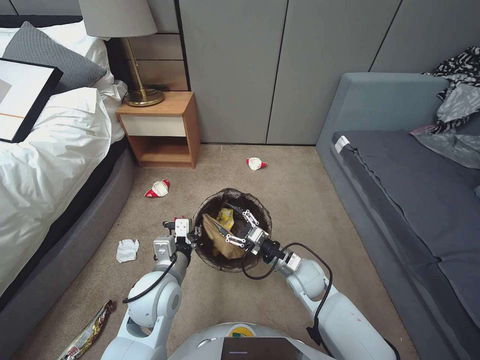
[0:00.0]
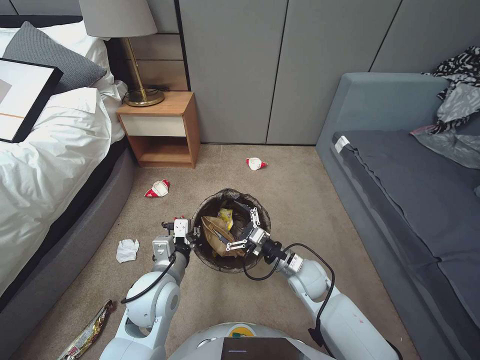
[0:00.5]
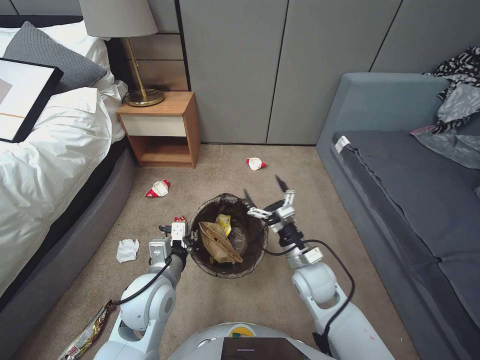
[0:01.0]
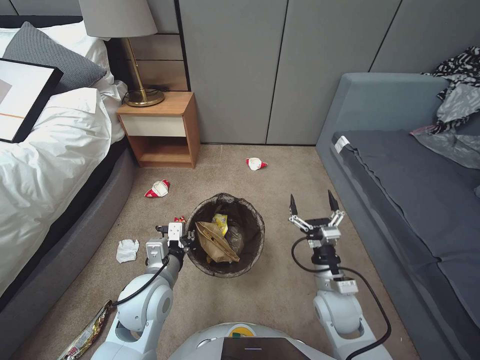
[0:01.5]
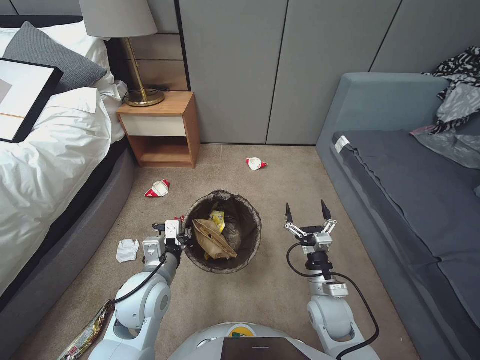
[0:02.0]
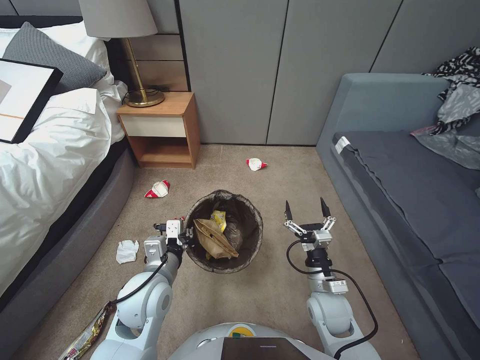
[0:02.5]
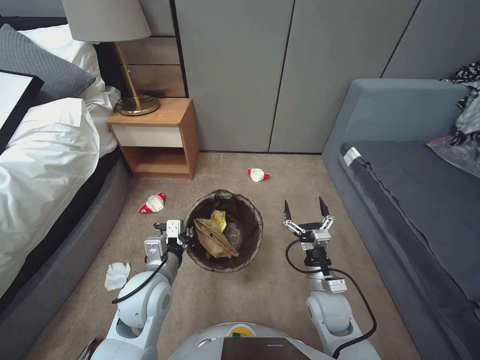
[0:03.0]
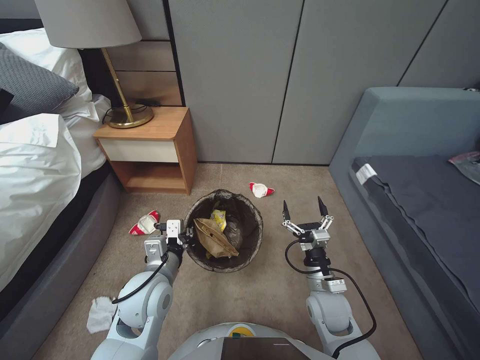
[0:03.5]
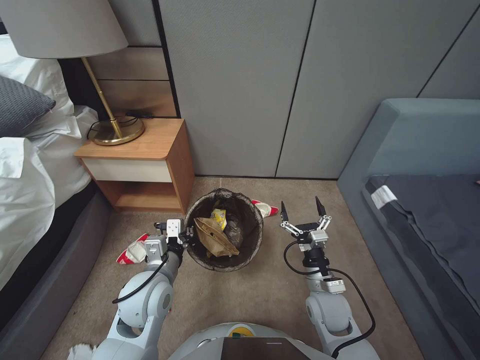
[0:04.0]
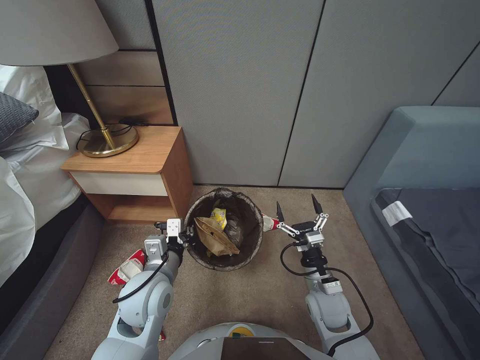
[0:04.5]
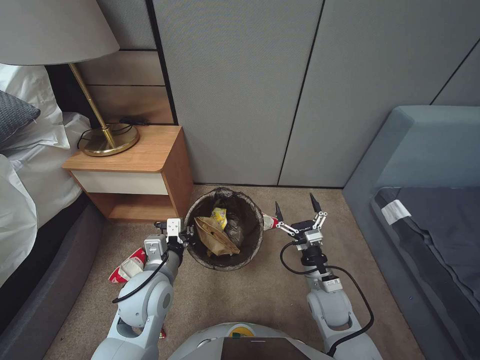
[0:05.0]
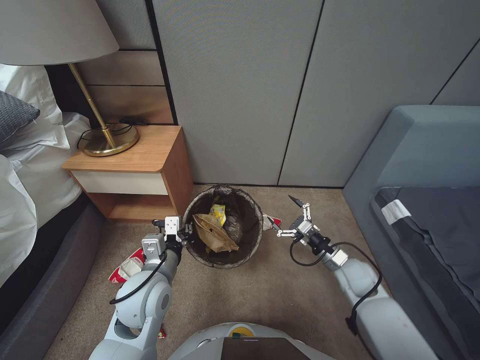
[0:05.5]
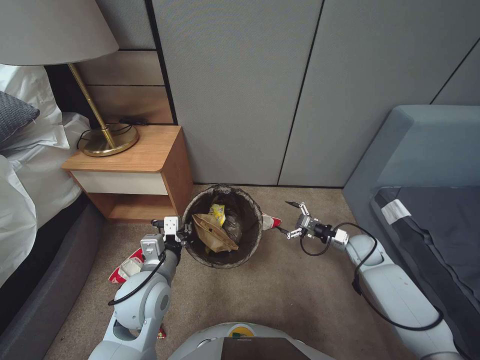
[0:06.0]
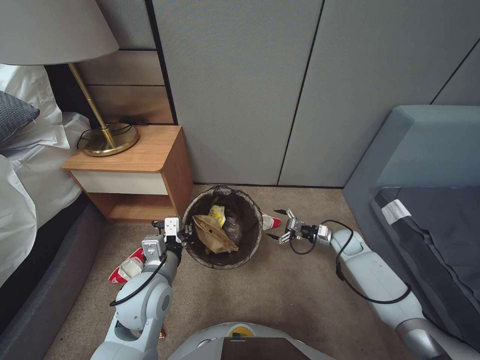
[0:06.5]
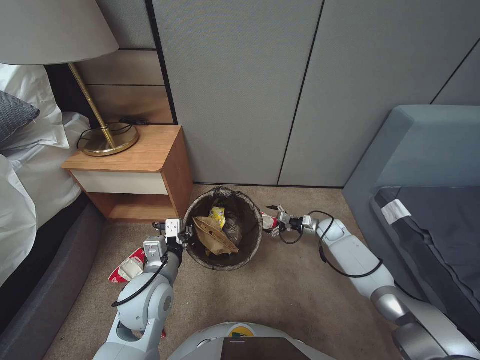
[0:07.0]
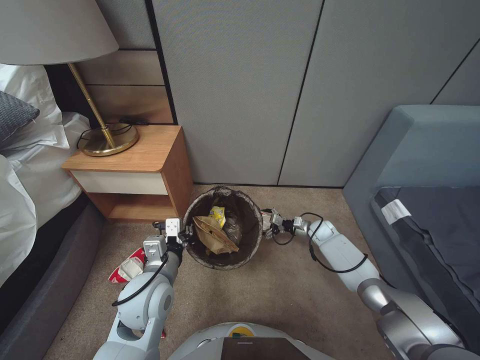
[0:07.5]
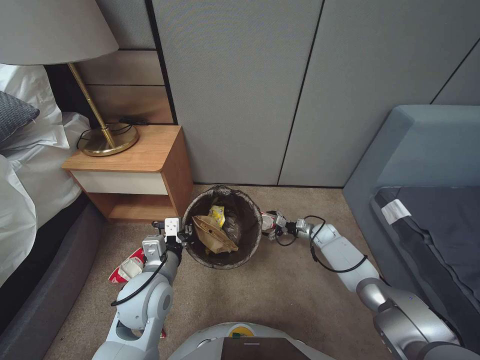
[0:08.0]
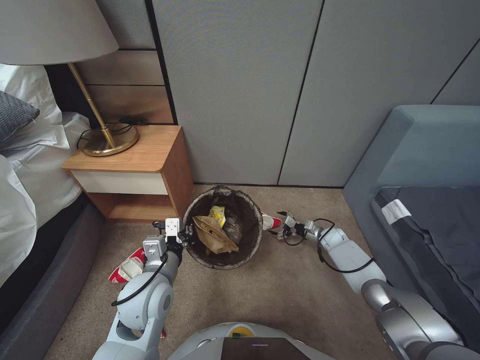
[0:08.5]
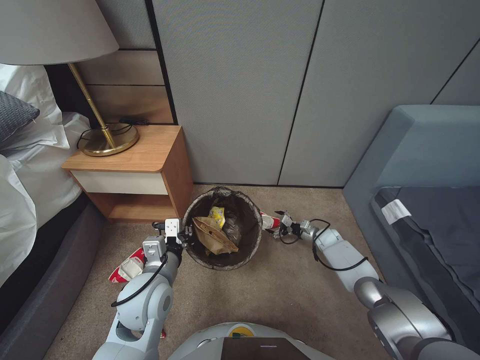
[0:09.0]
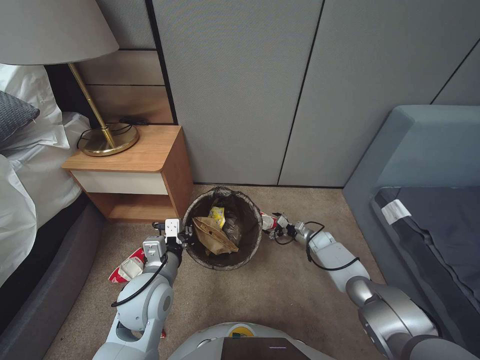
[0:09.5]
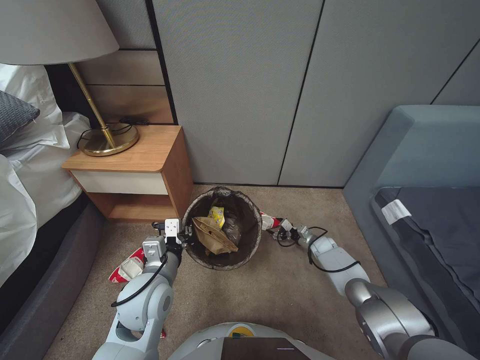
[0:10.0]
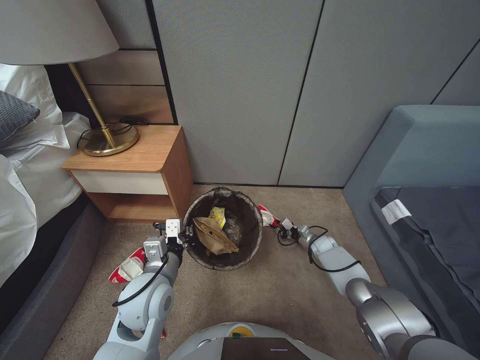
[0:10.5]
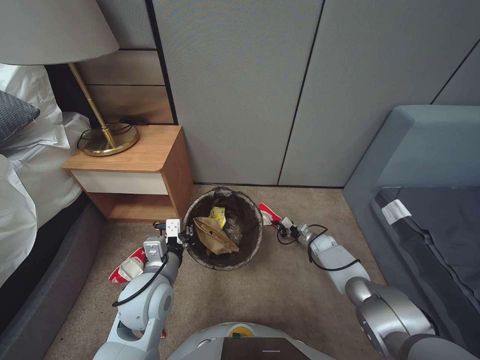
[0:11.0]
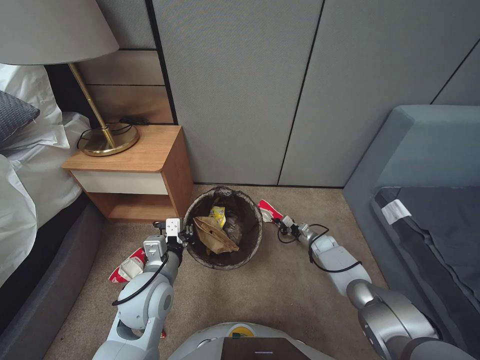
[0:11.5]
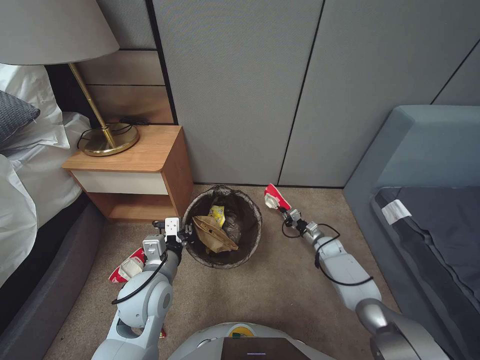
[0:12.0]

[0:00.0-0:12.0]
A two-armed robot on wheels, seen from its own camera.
Task of the whole recording: Pick up the trash bin, then pick up the garbage from the floor and place it into the trash bin.
0:00.0 to 0:02.0: The right gripper travels backward by some 10 cm, and opens up.
0:04.0 to 0:06.0: The right gripper moves to the right and forward, approximately 20 cm.
0:06.0 to 0:08.0: The right gripper travels forward and downward by about 15 cm.
0:08.0 to 0:10.0: The right gripper heads downward, covering about 5 cm.
0:10.0 to 0:12.0: The right gripper closes its fingers.

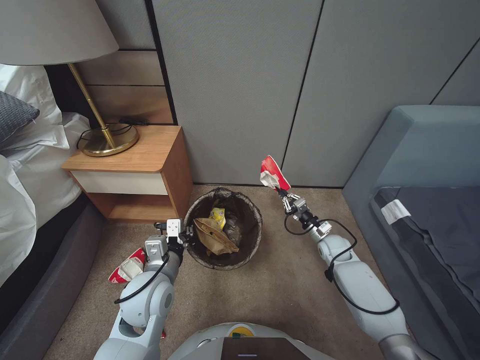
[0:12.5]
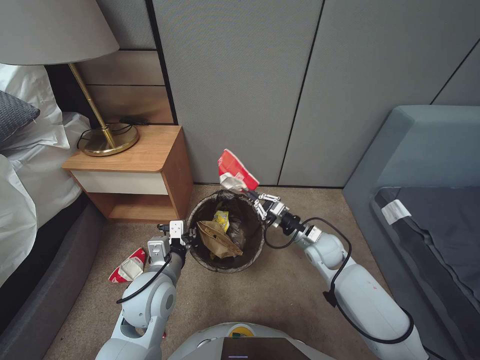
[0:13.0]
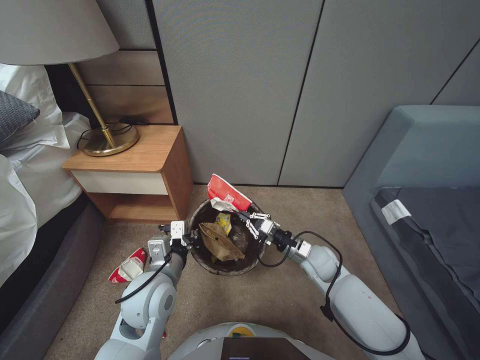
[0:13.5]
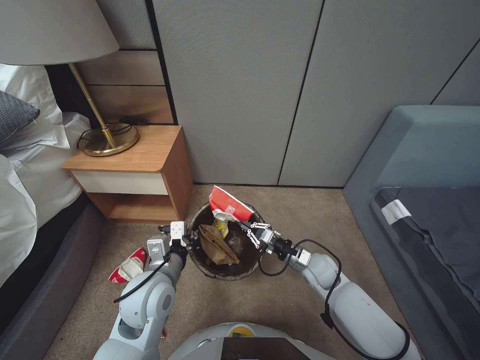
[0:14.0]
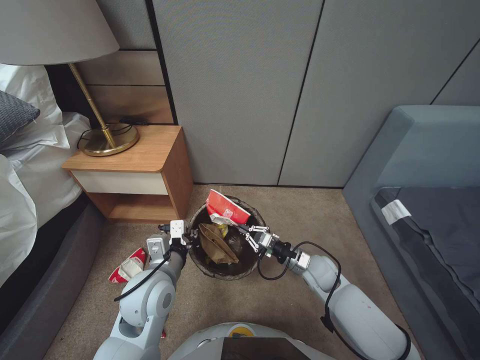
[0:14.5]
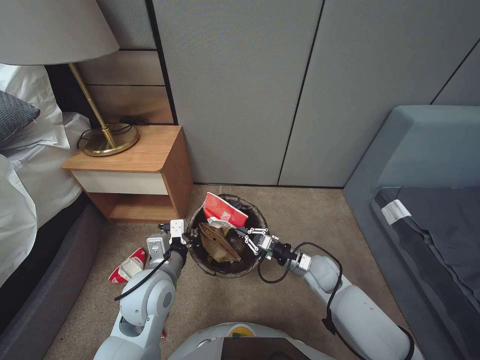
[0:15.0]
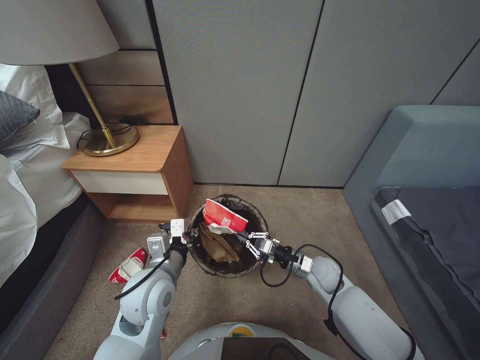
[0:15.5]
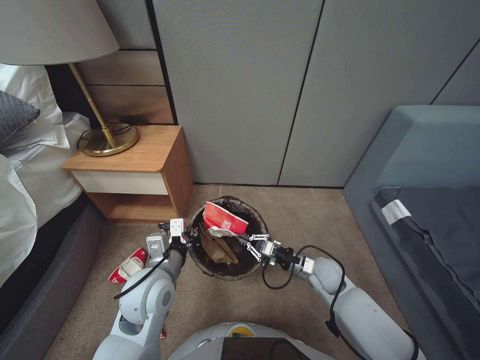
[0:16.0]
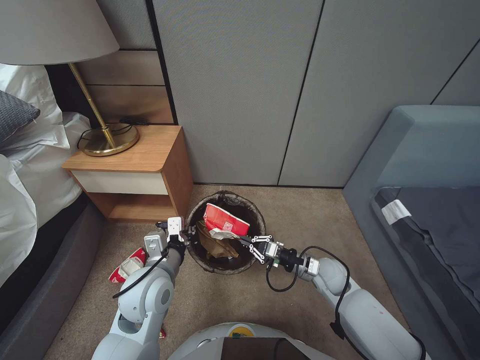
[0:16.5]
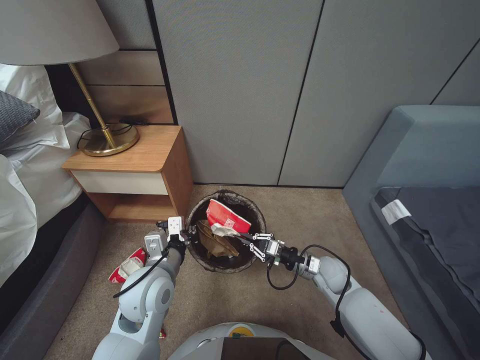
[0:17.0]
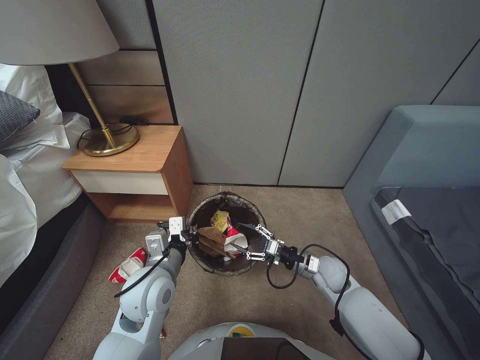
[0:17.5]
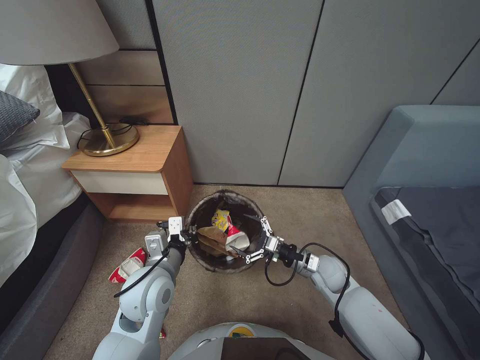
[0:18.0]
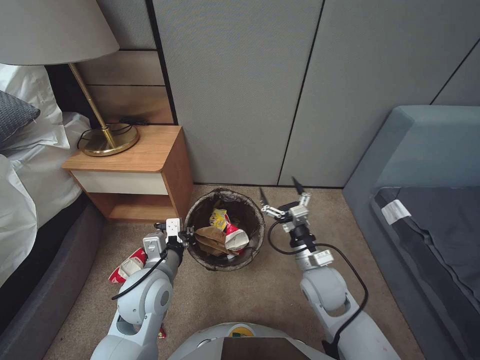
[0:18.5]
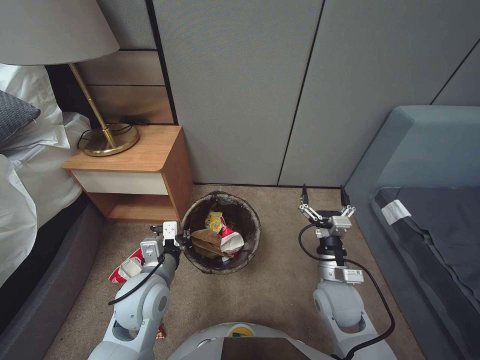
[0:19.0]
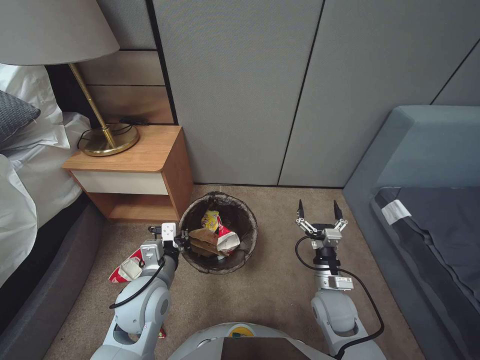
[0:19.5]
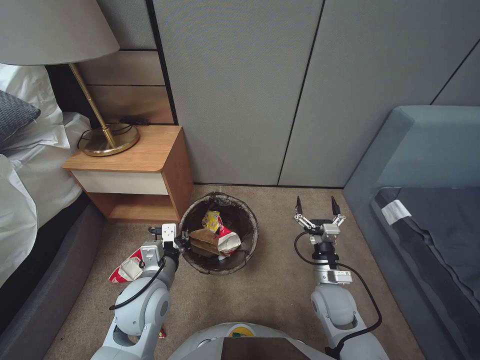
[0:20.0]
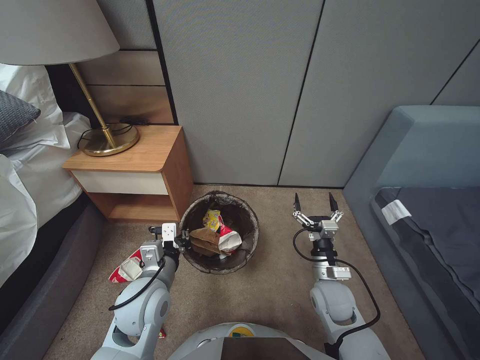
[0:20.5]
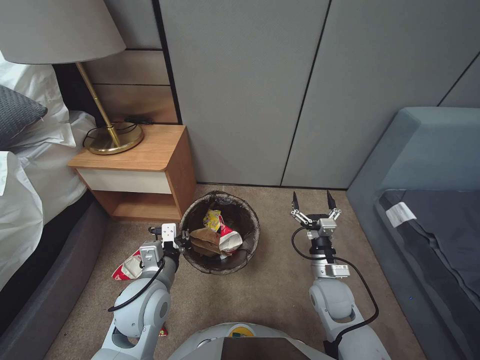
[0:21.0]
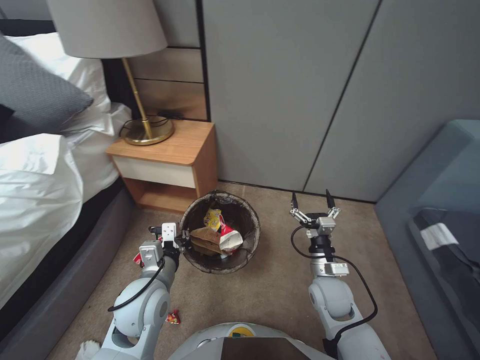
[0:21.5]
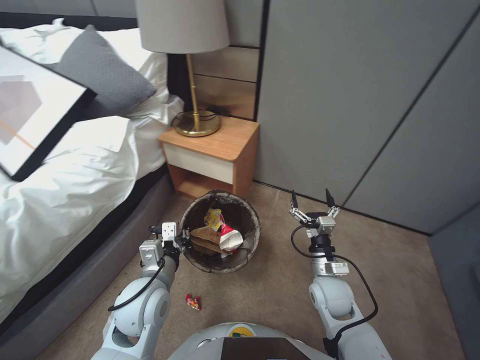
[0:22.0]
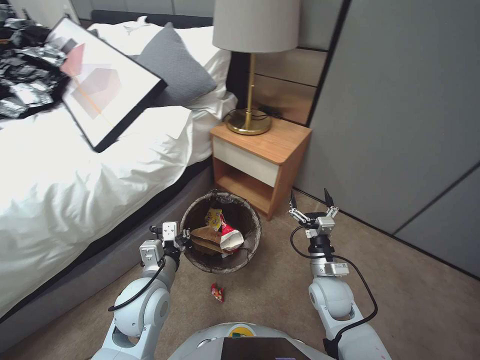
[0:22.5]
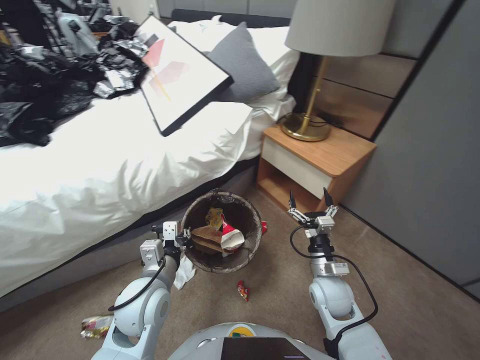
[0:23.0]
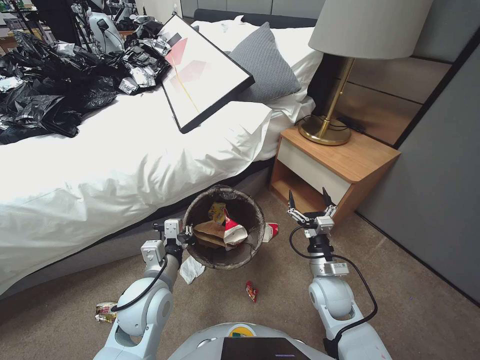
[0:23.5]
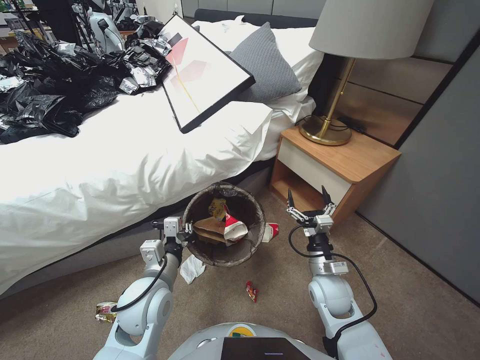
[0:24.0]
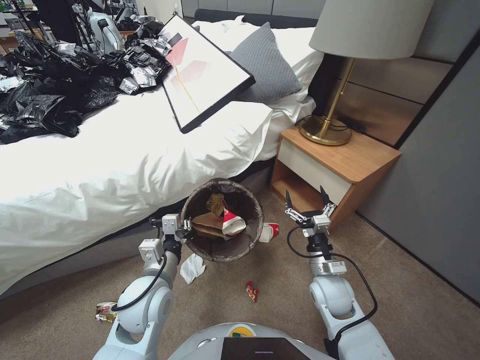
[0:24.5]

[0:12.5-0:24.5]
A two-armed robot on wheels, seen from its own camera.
Task of the whole recording: Pick up the trash bin, then pick up the garbage from the floor and place it into the trash bin.
0:12.5 to 0:14.5: The right gripper travels to the left, backward and upward by some 15 cm.
0:14.5 to 0:16.5: The grippers stay close to where they were, moving slightly.
0:16.5 to 0:18.5: The right gripper is displaced upward by approximately 5 cm, and opens its fingers.
0:18.5 to 0:20.5: The right gripper is displaced backward by some 5 cm.

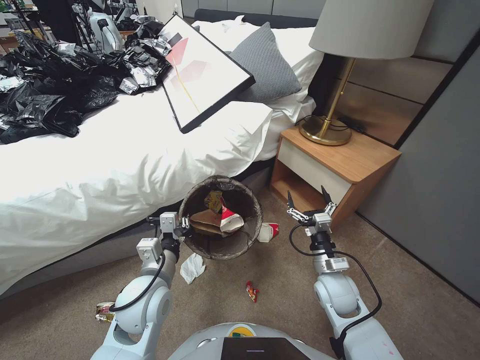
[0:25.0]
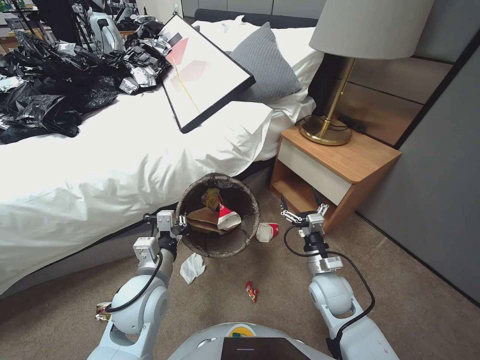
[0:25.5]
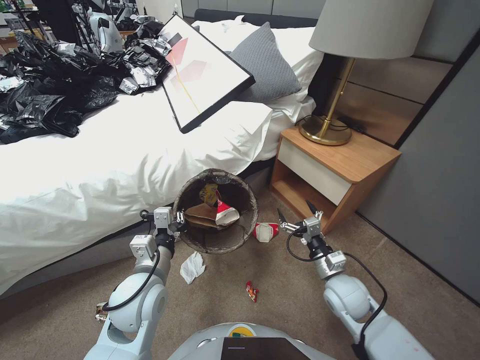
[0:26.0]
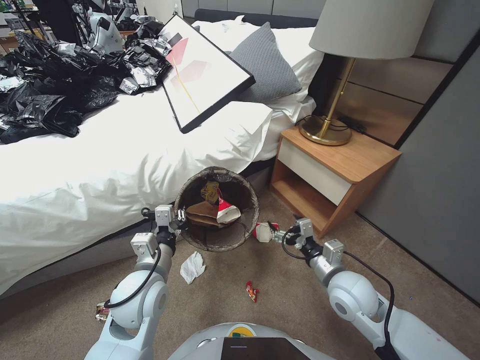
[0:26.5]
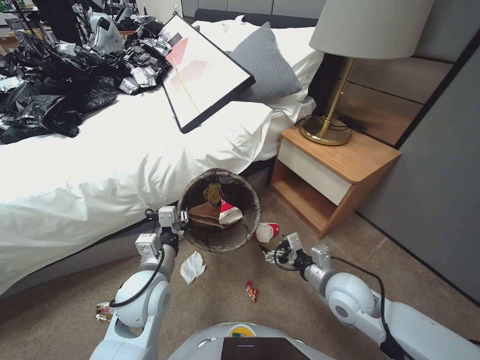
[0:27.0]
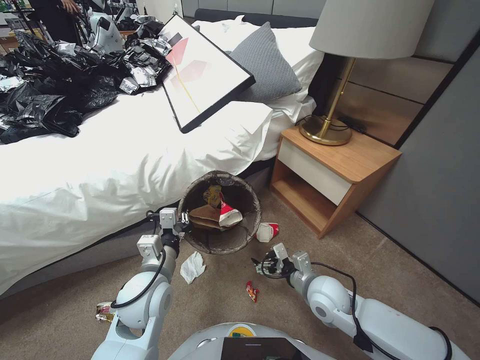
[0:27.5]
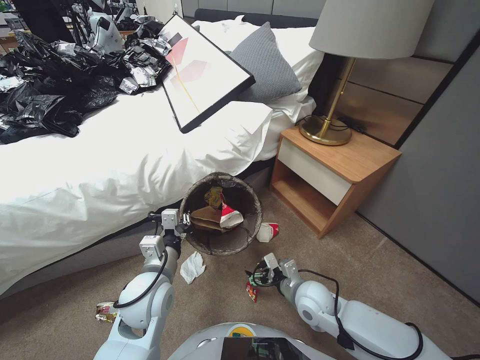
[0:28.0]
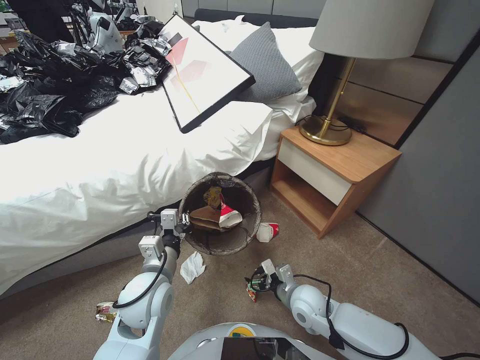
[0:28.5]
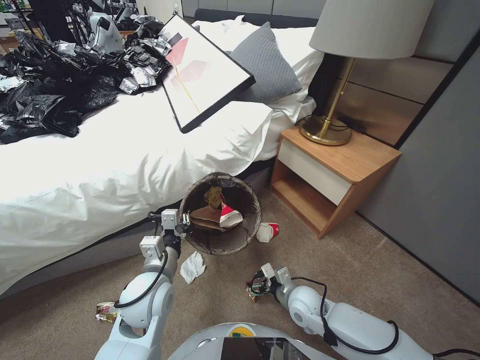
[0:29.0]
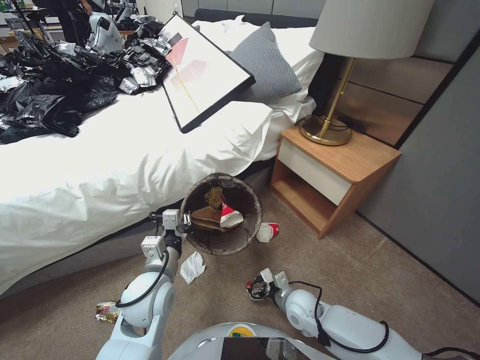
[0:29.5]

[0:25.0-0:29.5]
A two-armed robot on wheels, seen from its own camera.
Task of the whole recording: Pick up the trash bin, then pick up the garbage from the floor and place it into the trash bin.
0:25.0 to 0:27.0: The right gripper heads upward, covering roughly 5 cm.
0:27.0 to 0:29.5: The right gripper goes some 15 cm downward.
